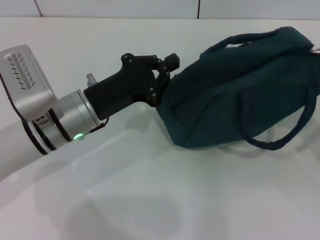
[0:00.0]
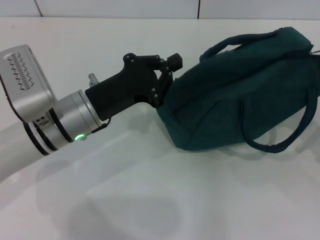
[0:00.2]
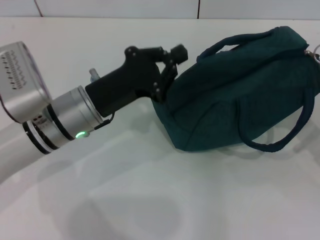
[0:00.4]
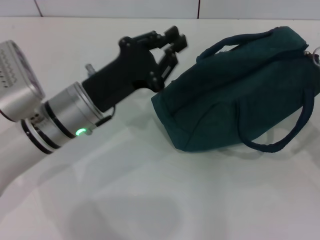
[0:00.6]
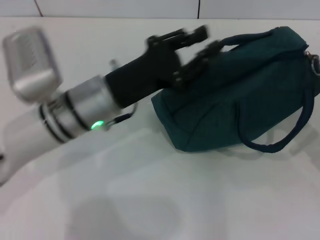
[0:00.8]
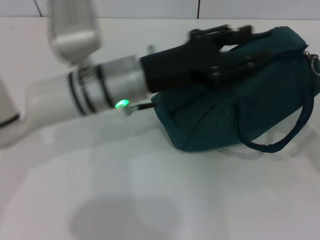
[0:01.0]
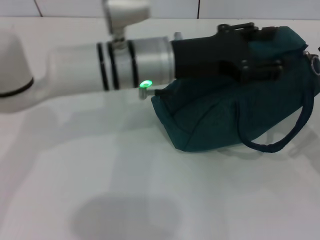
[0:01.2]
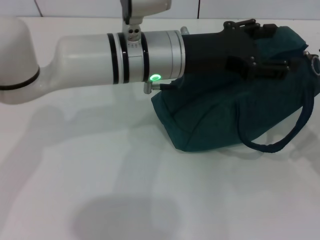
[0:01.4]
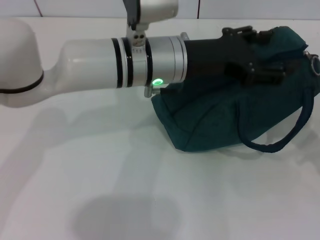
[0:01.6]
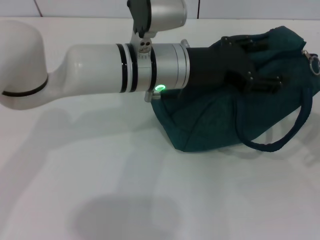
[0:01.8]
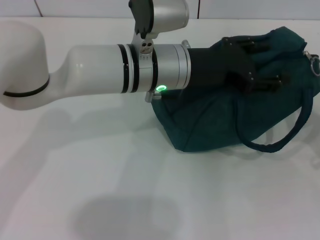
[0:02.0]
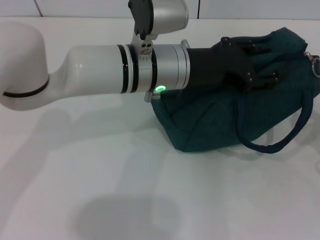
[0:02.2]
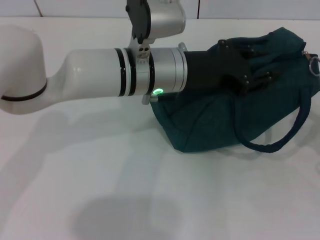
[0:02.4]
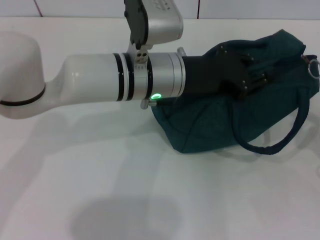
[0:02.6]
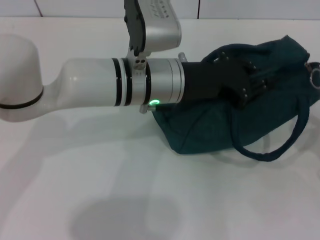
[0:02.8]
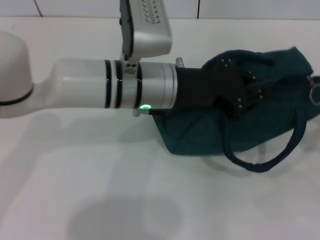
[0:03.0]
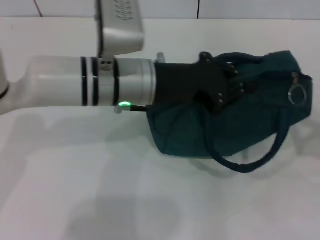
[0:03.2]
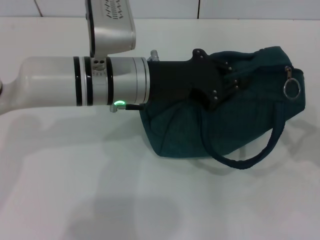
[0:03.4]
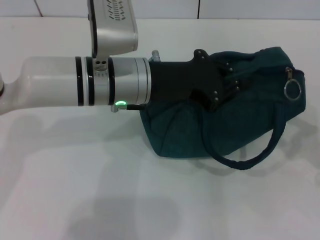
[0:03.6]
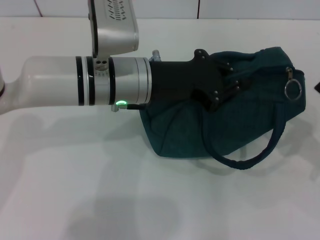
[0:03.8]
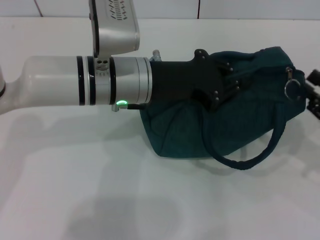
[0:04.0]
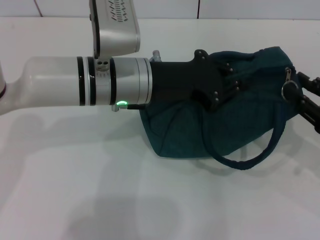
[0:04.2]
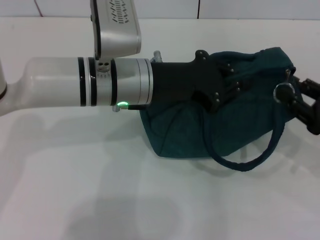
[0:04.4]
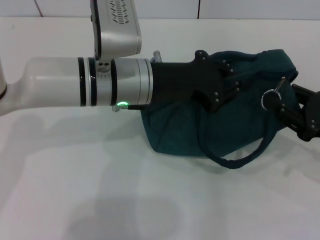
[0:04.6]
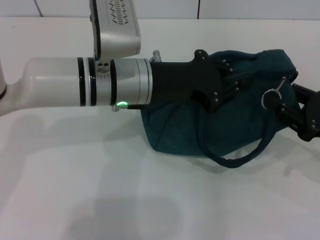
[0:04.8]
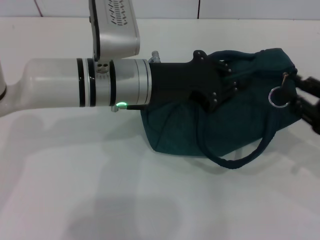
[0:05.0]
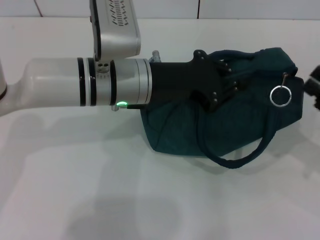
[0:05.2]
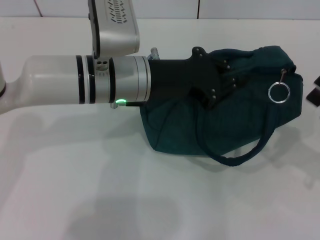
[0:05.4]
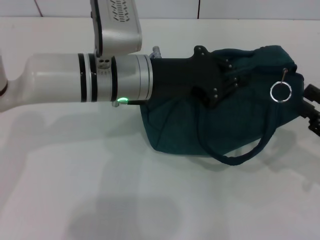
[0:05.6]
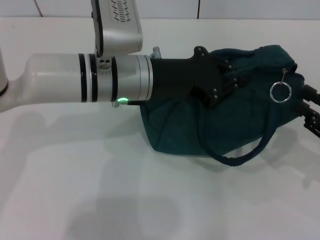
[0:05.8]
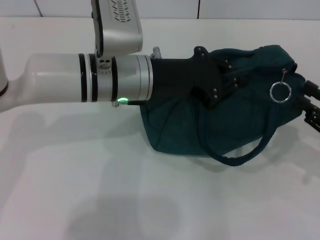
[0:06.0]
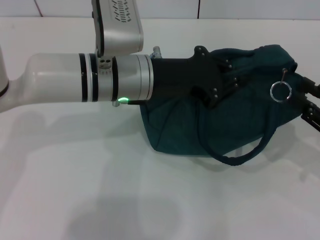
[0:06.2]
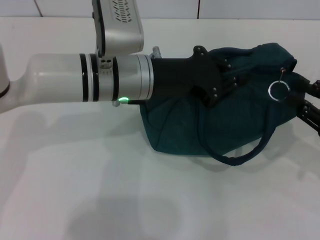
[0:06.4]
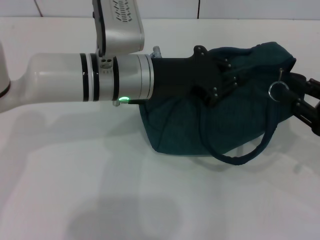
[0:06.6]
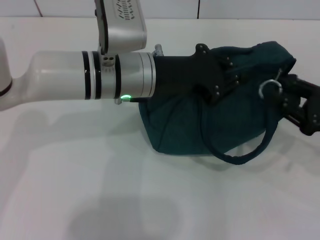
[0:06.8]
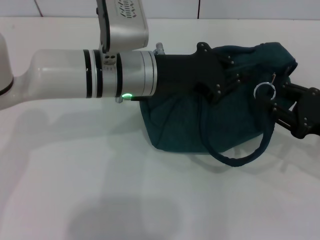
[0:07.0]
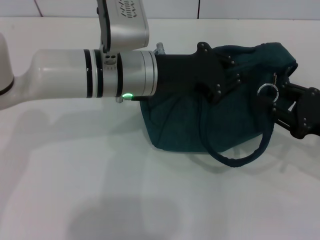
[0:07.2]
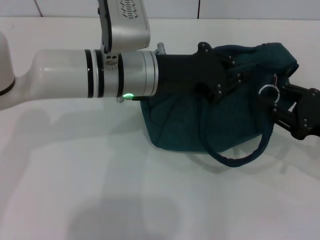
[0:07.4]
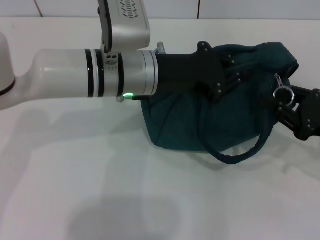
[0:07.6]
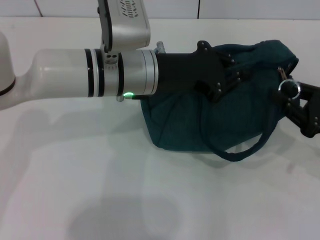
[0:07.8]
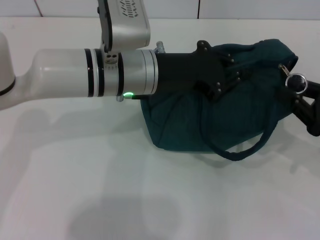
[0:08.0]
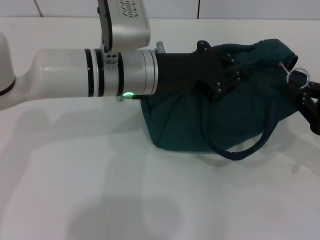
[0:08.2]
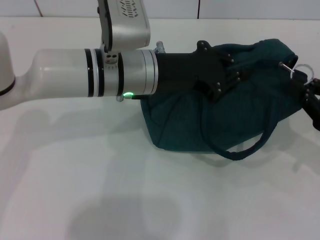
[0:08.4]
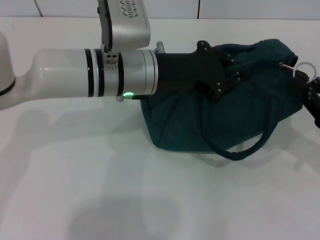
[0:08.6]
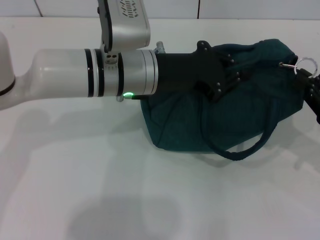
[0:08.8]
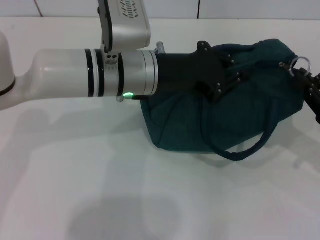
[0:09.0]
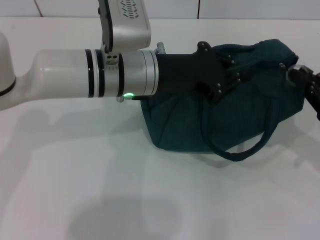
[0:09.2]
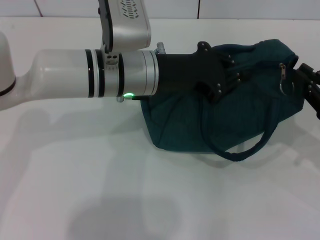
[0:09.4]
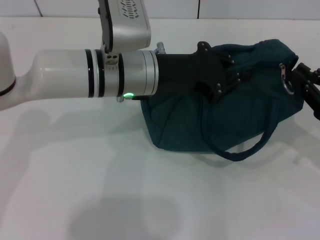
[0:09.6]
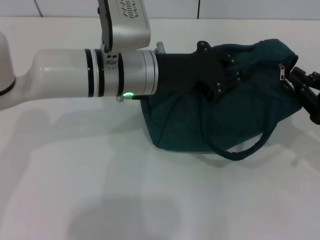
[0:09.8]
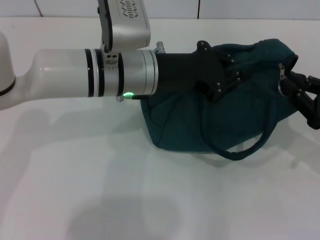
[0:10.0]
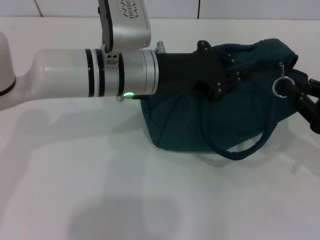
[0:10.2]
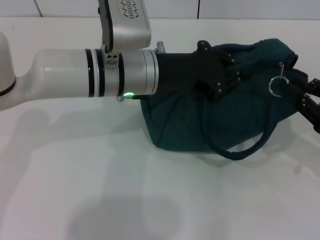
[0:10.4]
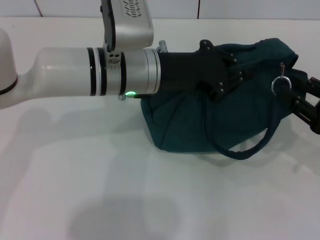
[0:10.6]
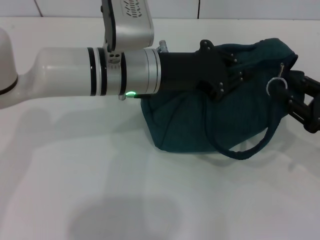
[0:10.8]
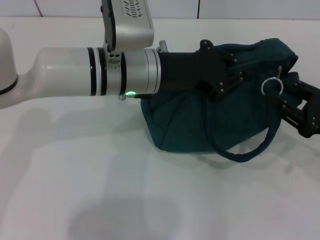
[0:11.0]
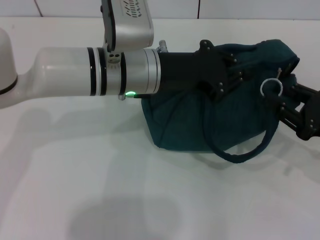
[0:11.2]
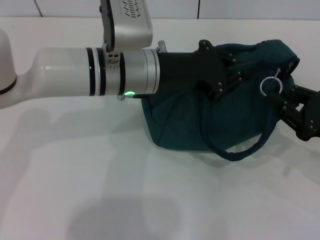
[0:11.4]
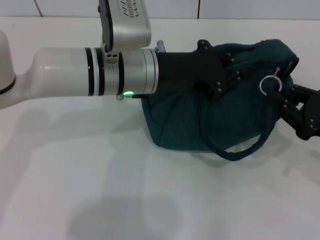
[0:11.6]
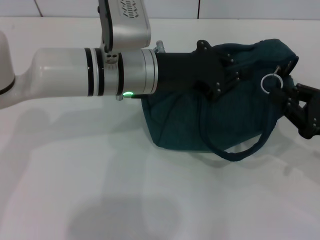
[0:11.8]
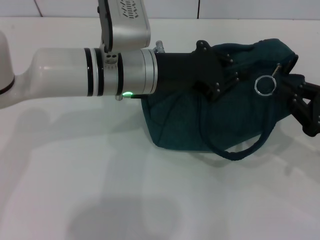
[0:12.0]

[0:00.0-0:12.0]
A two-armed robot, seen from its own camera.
0:00.0 to 0:01.6: The left gripper goes roughly 15 cm to the right and upward, and opens its fingers.
0:01.6 to 0:03.0: The right gripper changes place by some 5 cm. Meanwhile the left gripper closes.
0:03.0 to 0:04.4: The right gripper shifts some 5 cm forward.
0:04.4 to 0:09.0: The grippers move only a little.
0:09.0 to 0:10.4: Both grippers stay put.
0:10.4 to 0:12.0: There are only small adjustments of the grippers.

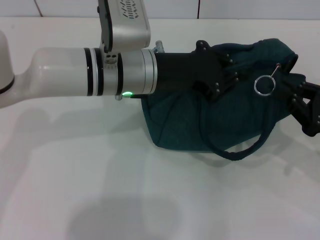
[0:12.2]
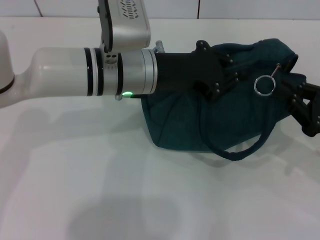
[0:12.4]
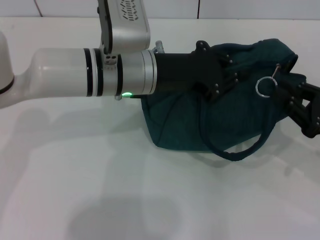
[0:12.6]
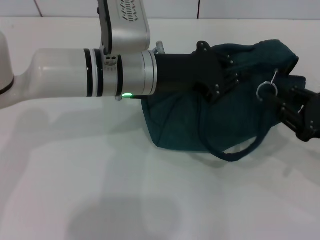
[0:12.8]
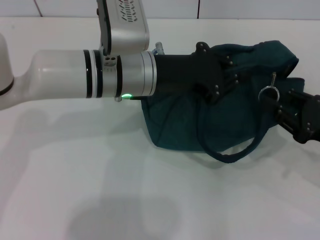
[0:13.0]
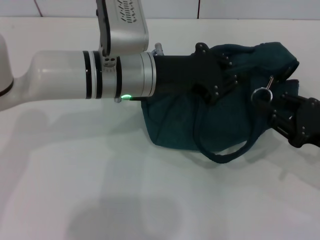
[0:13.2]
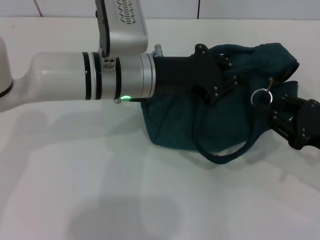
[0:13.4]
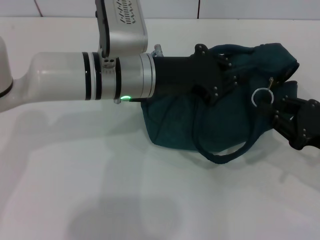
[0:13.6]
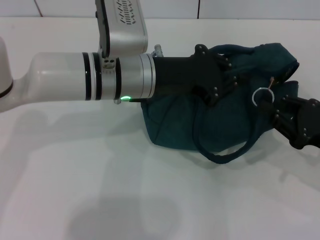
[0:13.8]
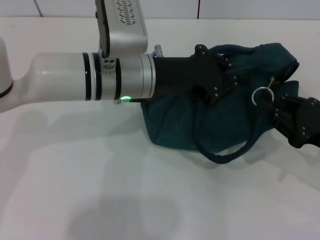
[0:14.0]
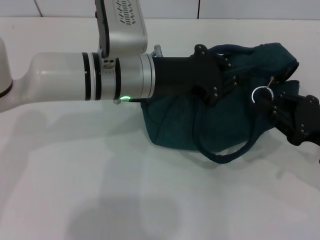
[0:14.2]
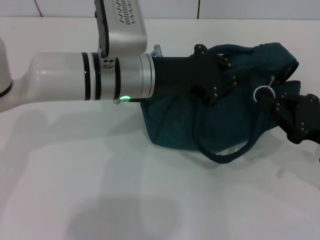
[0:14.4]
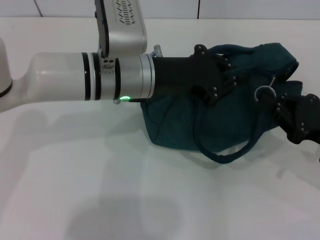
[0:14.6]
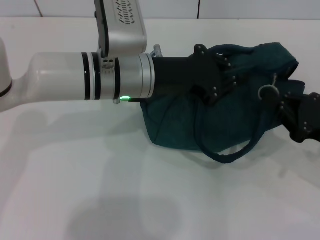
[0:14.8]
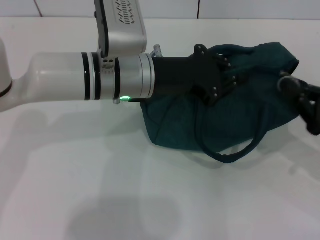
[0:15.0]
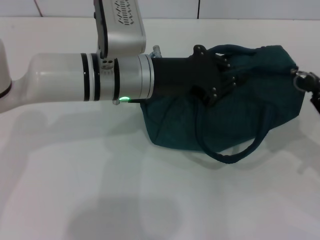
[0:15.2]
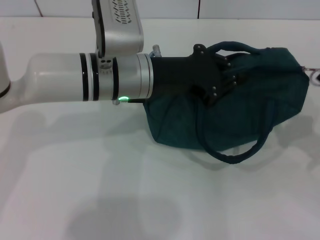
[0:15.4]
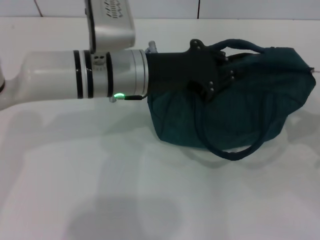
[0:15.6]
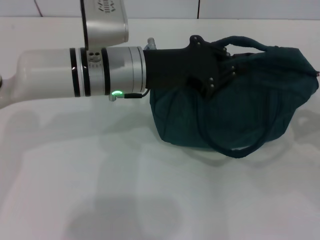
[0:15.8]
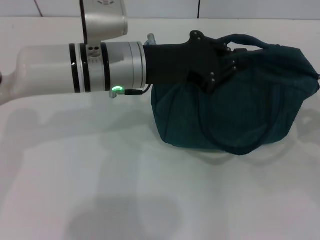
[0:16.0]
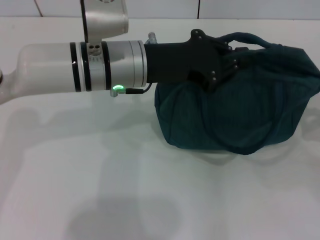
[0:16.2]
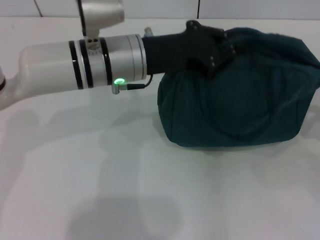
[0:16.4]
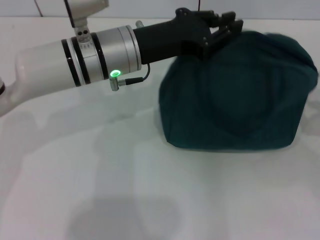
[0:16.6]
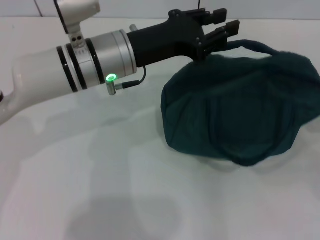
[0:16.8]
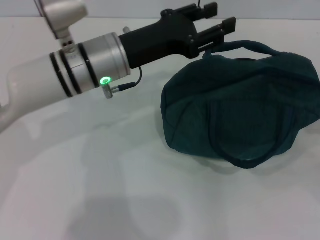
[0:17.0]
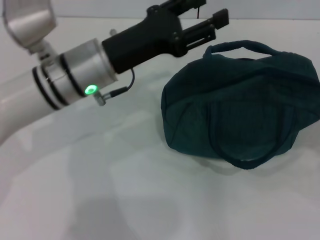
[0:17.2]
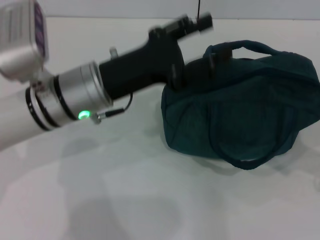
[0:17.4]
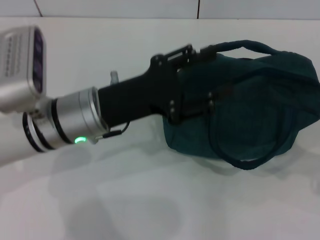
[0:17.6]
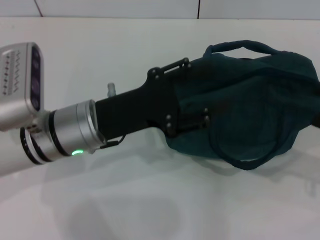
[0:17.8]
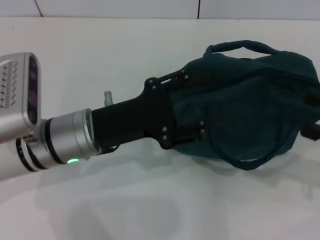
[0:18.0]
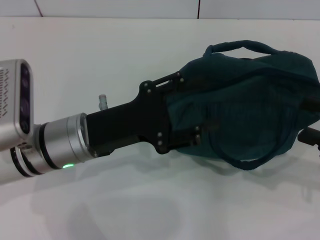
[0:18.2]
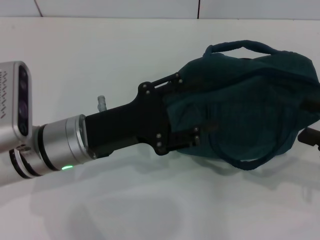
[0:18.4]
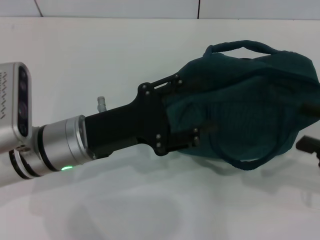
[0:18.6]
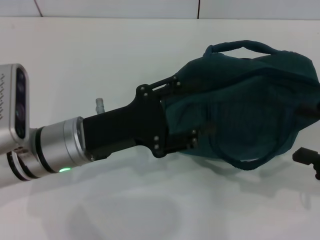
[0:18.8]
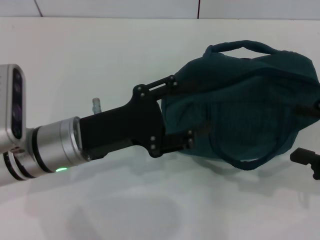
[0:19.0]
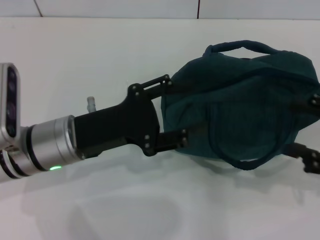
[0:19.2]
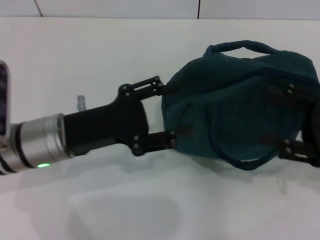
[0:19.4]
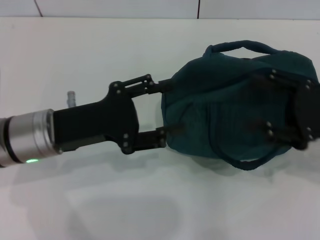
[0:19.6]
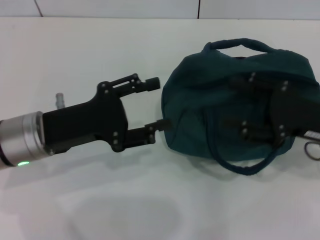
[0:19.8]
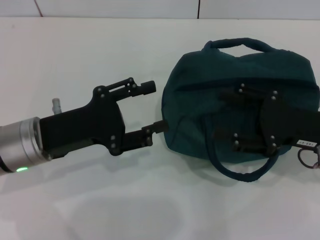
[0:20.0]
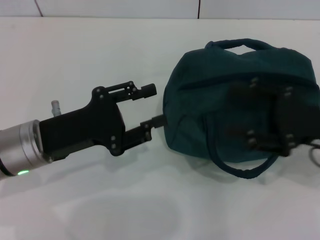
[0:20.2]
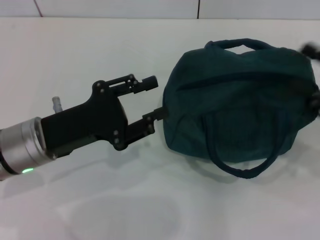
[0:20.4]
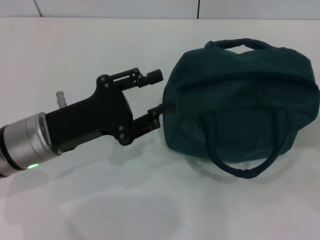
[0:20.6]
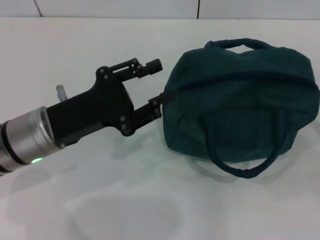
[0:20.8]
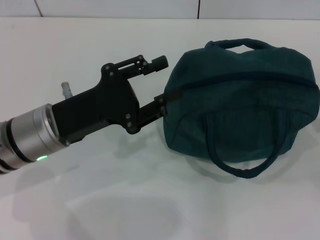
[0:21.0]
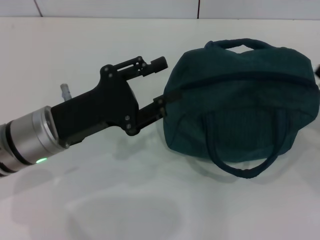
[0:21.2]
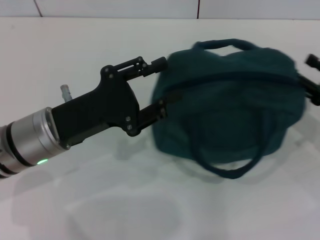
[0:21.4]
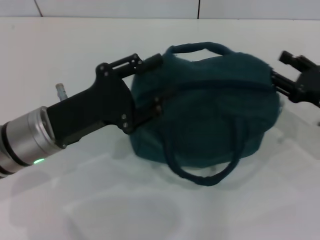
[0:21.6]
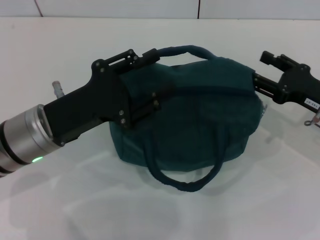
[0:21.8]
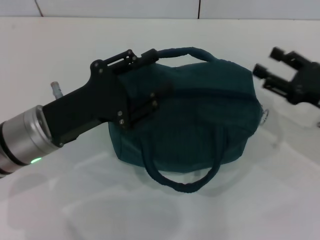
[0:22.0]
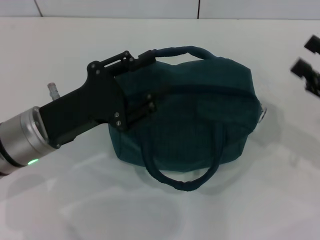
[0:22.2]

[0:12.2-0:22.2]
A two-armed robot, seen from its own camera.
Step, 0:12.2 to 0:16.2: Zip up the lunch bag with your right hand.
Step, 0:16.4 to 0:16.8: Hold the lunch bag with your left hand.
0:12.2 to 0:15.0: The grippers make only small movements.
0:15.0 to 0:16.4: The right gripper changes place by about 5 cm.
0:16.4 to 0:18.0: The right gripper heads upward, covering roughly 5 cm, and opens up. The left gripper is displaced backward, downward and to the left by about 10 cm, and opens up.
0:18.0 to 0:19.4: The grippers move only a little.
0:19.4 to 0:20.8: The right gripper moves to the right, some 10 cm.
0:20.8 to 0:22.2: The right gripper moves to the left, approximately 5 cm.
